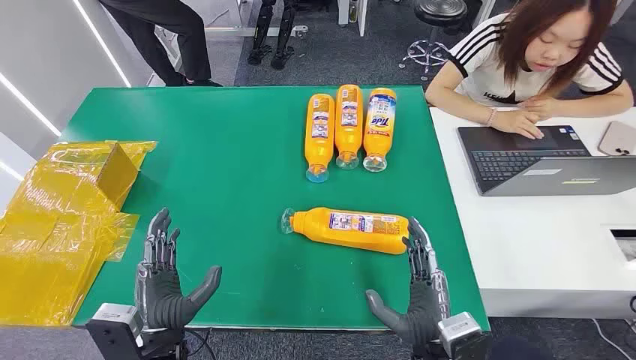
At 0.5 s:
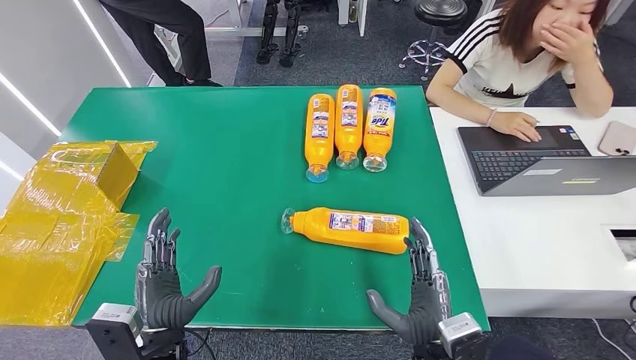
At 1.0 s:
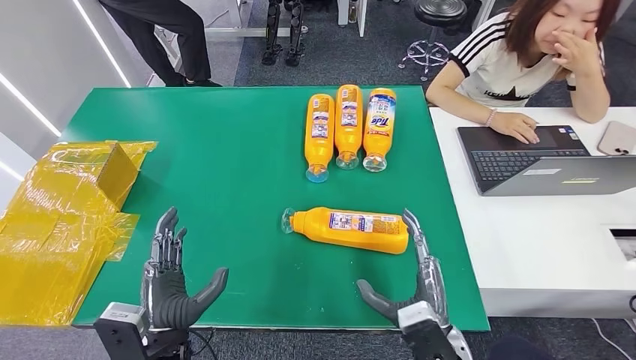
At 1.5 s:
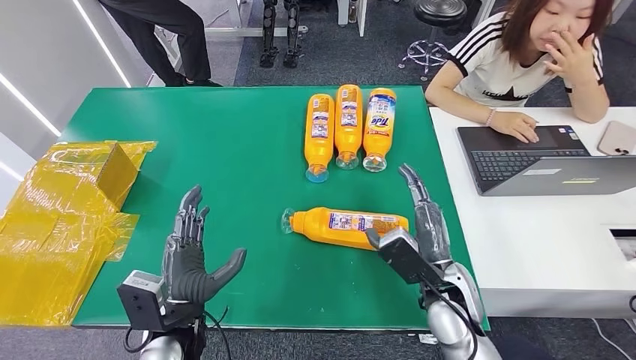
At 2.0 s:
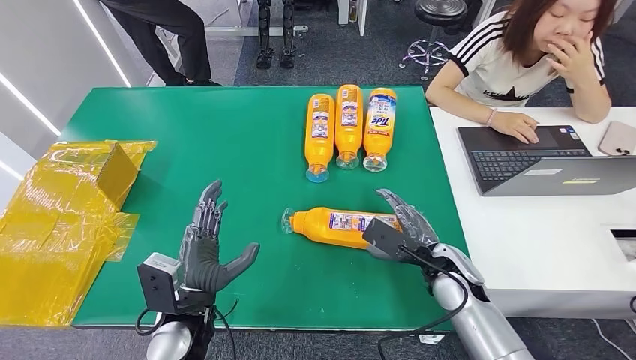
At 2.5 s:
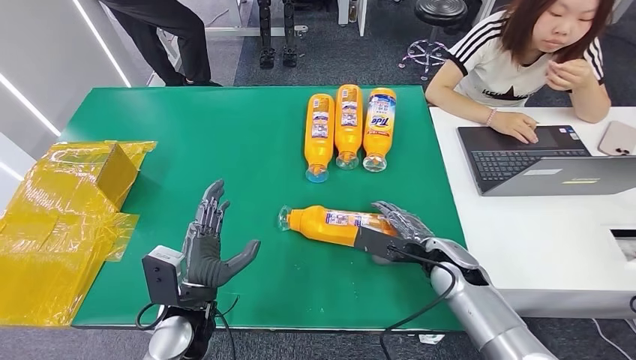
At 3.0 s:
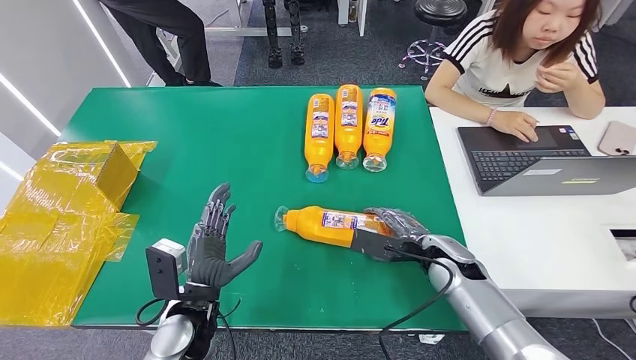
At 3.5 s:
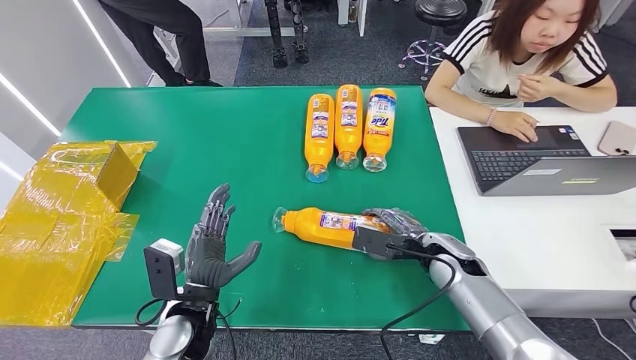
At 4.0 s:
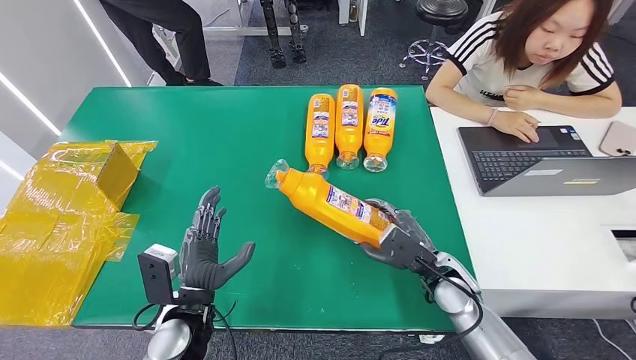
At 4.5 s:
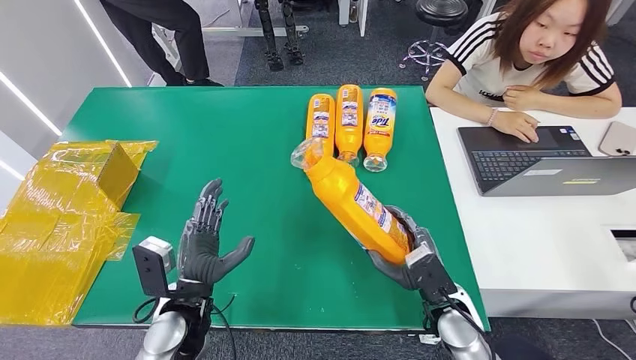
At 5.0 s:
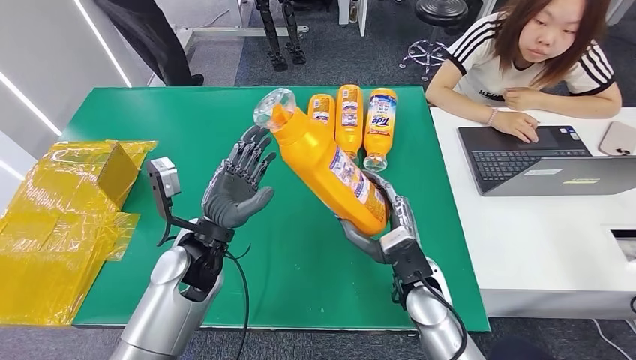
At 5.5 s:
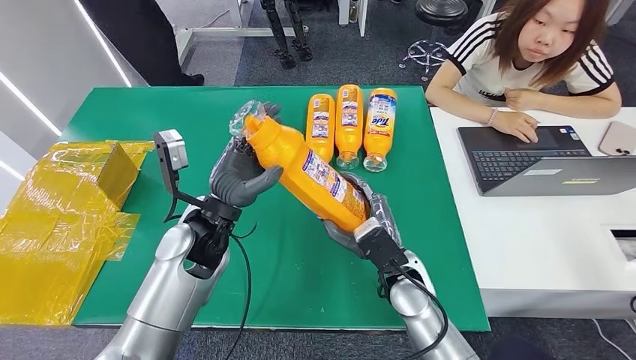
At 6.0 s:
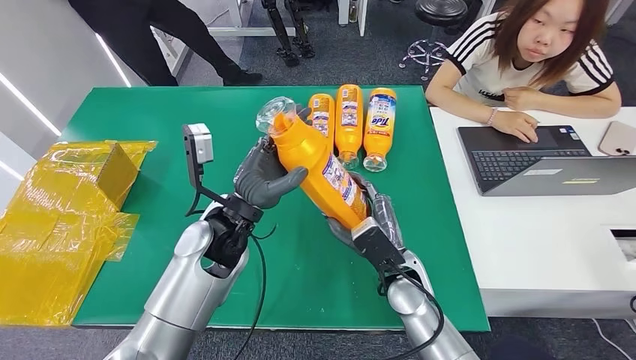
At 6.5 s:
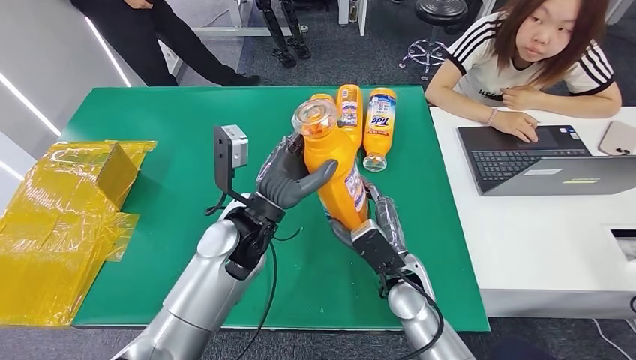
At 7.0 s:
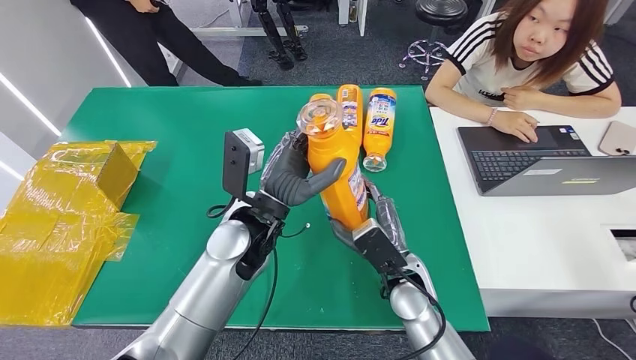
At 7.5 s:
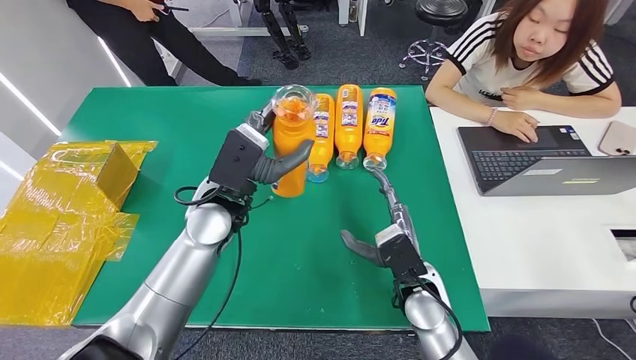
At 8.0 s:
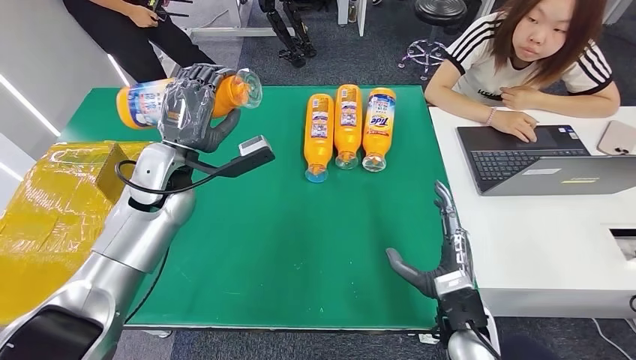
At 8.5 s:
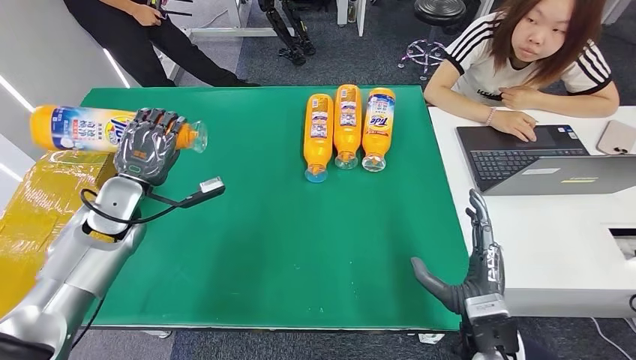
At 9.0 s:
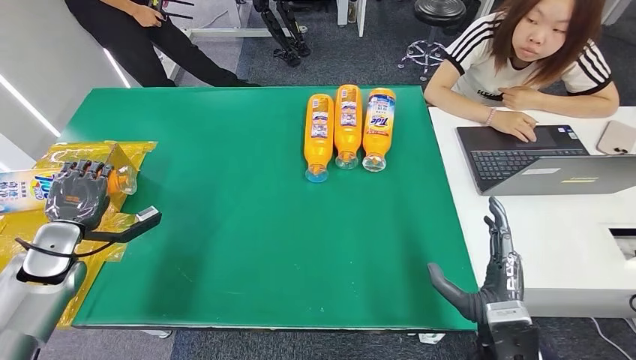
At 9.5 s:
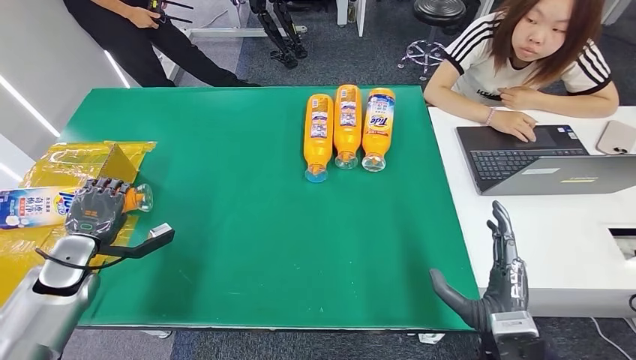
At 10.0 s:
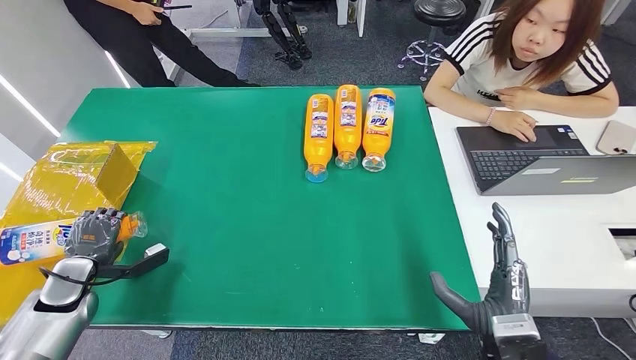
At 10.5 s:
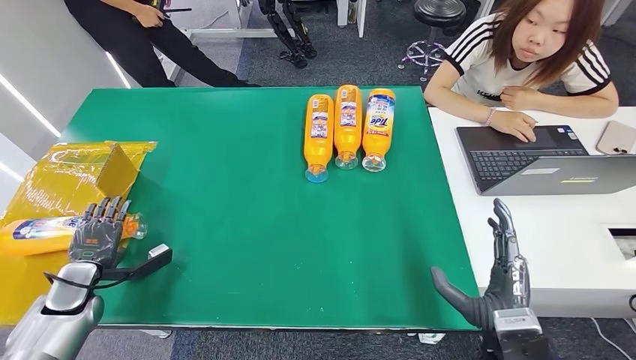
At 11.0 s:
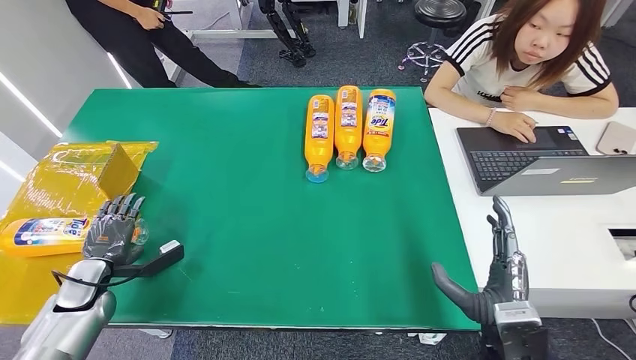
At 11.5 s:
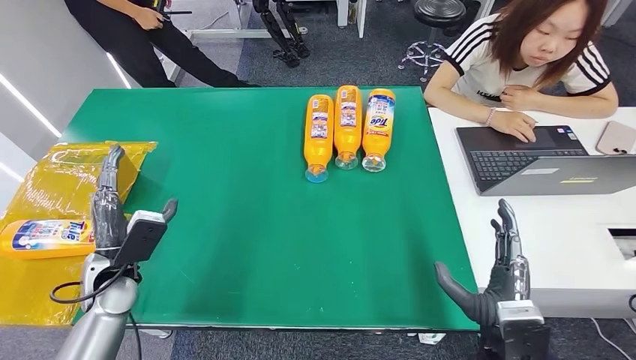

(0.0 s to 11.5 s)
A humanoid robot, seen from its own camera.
Step, 0.0 s - 4.5 s: Pick up the bottle from the table.
Step, 5.0 s - 11.5 s: Turn the bottle to the front side.
9.5 s - 11.5 s: The left hand moves to the right, roughly 10 cm.
